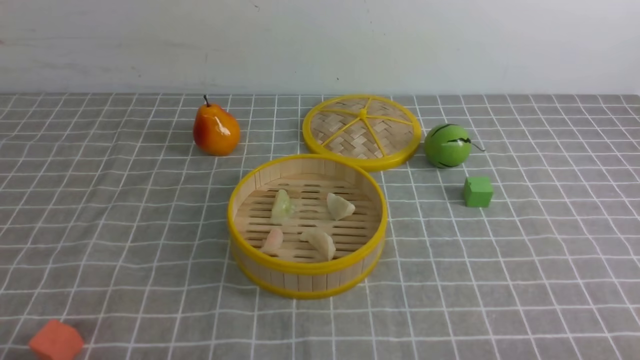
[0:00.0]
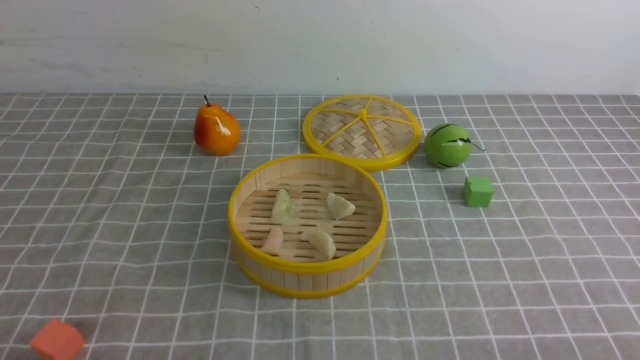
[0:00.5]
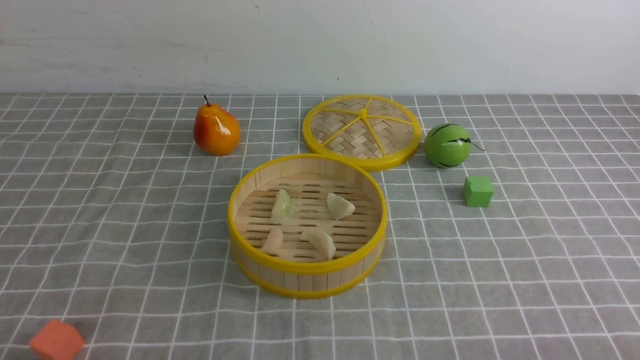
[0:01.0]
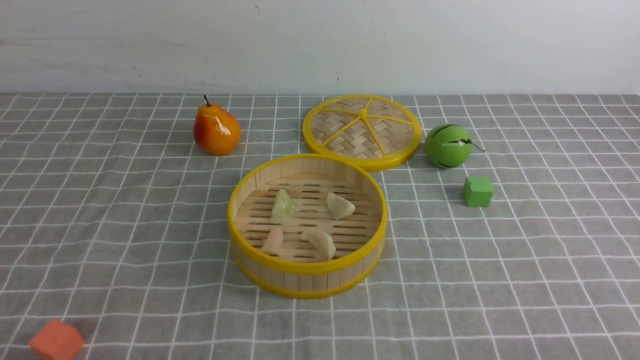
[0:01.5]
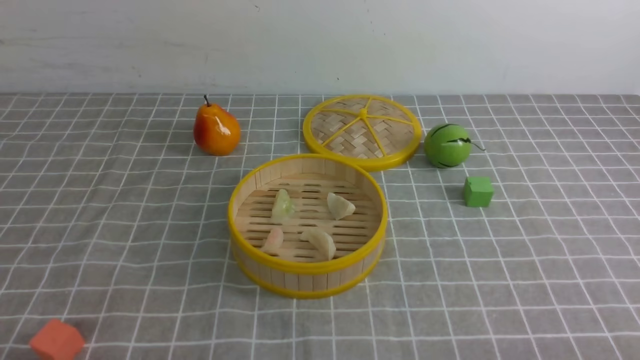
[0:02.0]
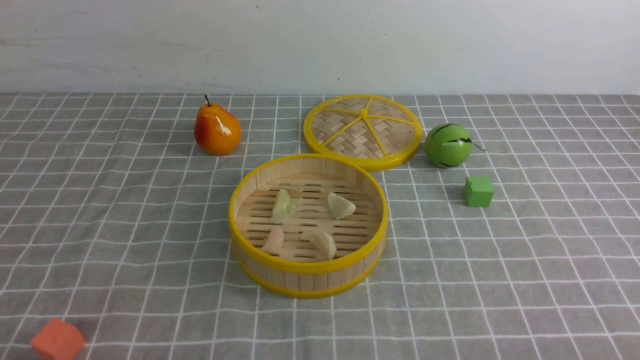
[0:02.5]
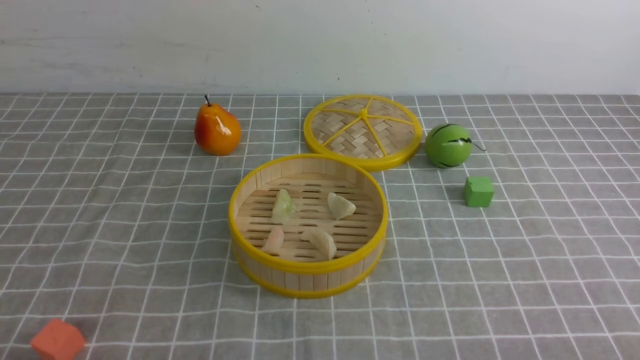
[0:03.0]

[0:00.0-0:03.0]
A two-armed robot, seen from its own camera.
Task of the whole recording: put the dumplings into the steamer on the table with the grey tablecloth.
0:01.5 to 0:03.0: Both grippers stay about where they are.

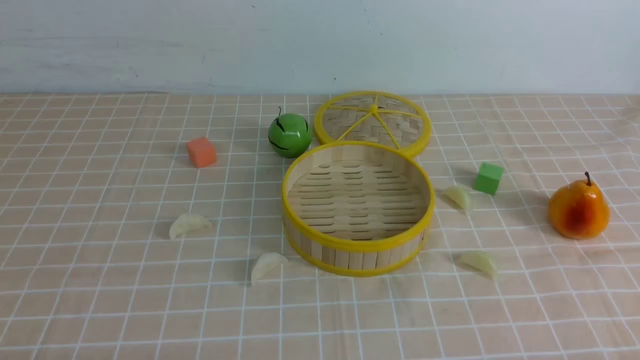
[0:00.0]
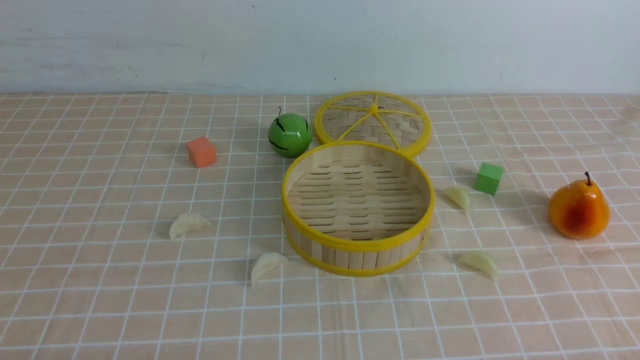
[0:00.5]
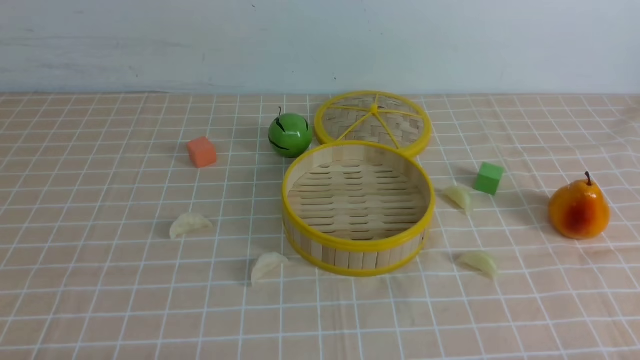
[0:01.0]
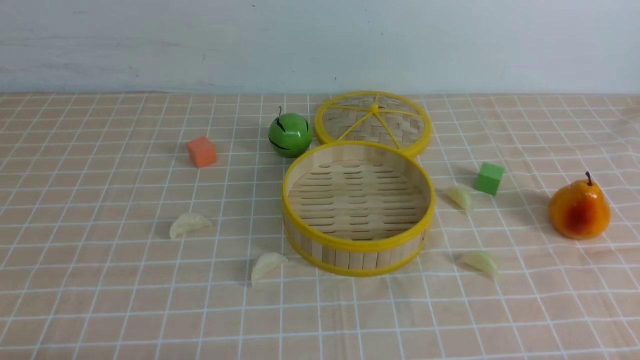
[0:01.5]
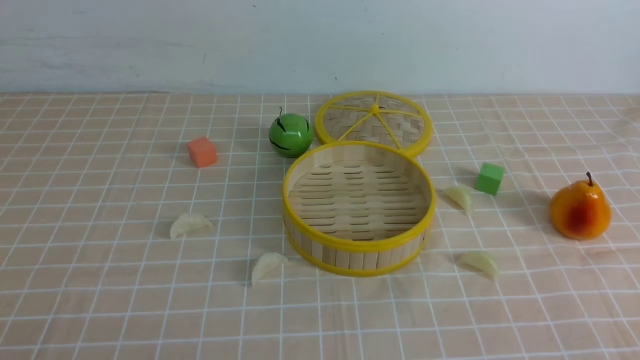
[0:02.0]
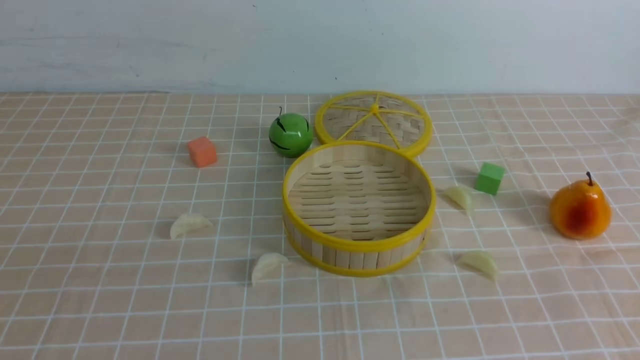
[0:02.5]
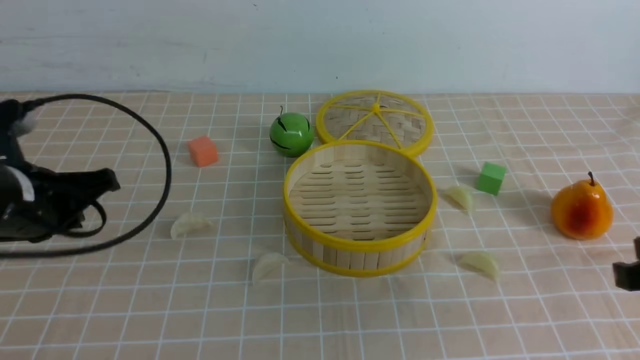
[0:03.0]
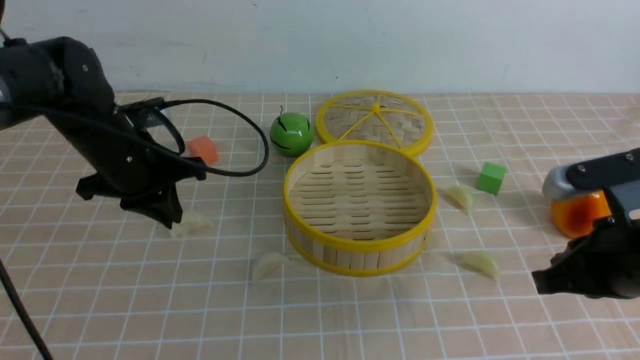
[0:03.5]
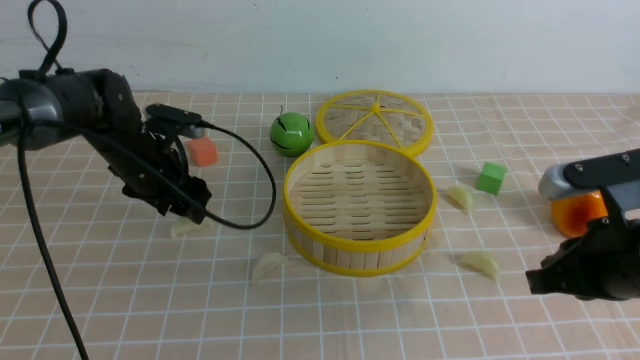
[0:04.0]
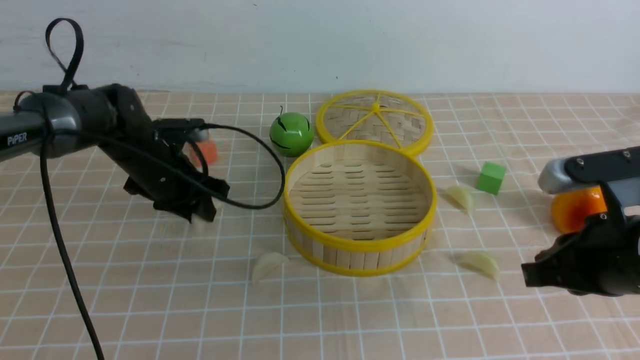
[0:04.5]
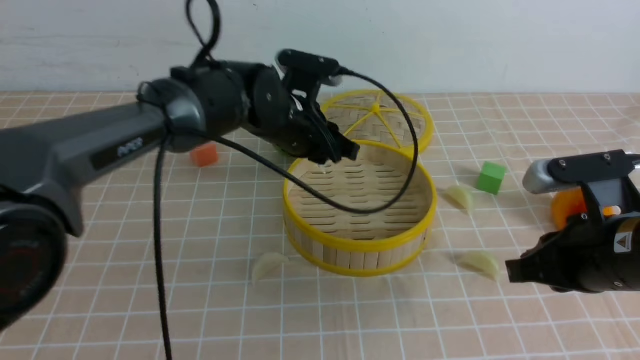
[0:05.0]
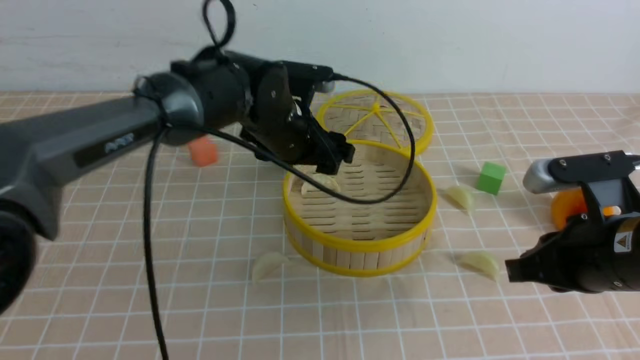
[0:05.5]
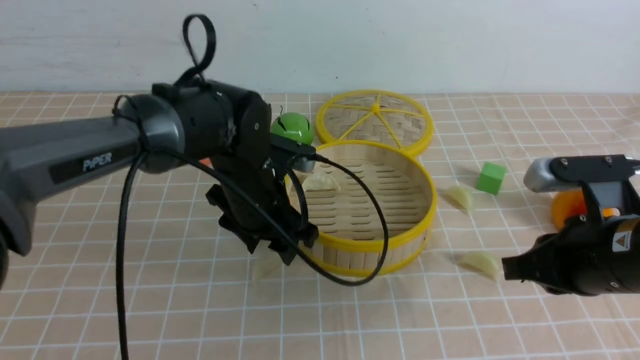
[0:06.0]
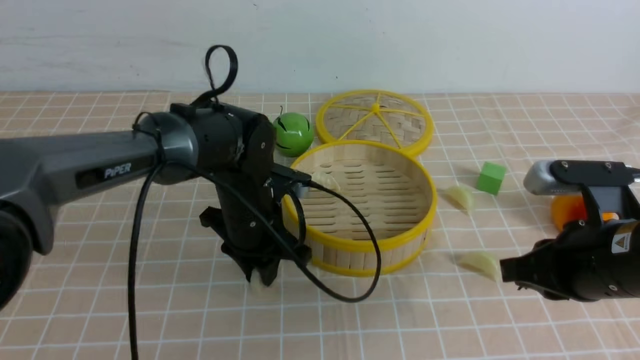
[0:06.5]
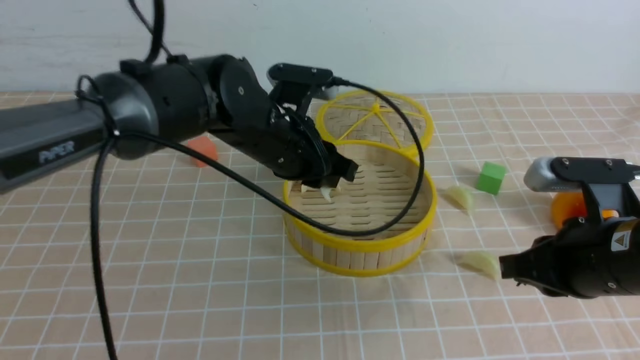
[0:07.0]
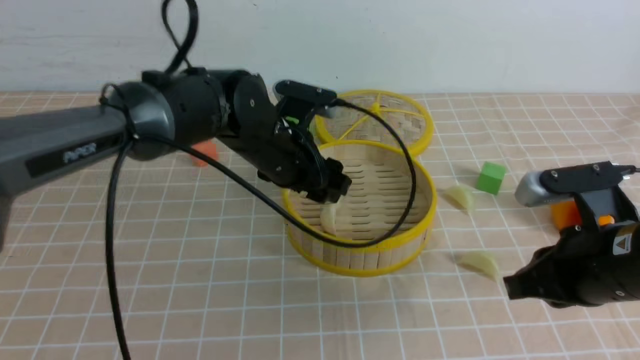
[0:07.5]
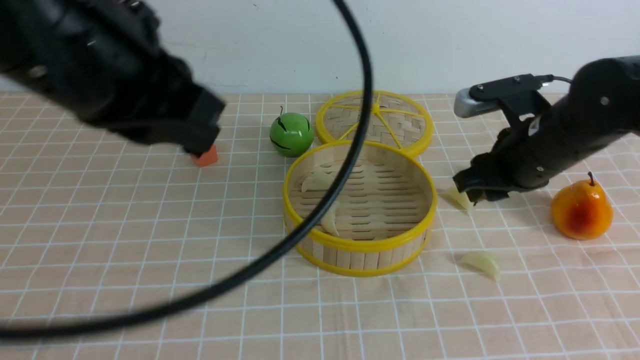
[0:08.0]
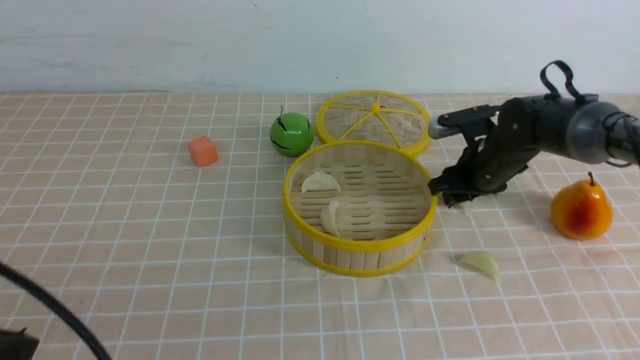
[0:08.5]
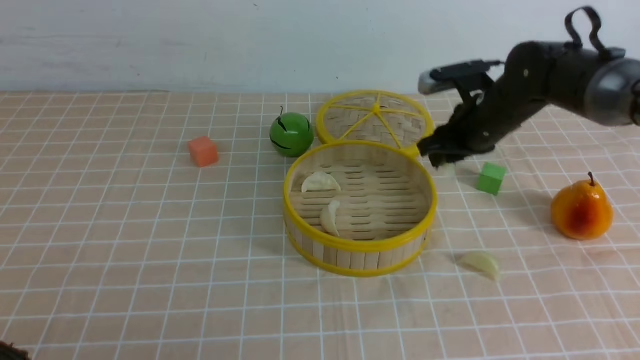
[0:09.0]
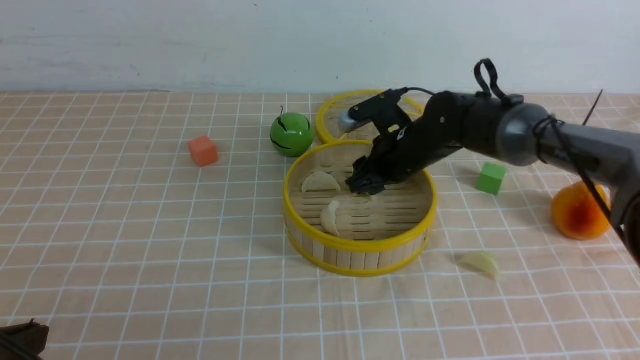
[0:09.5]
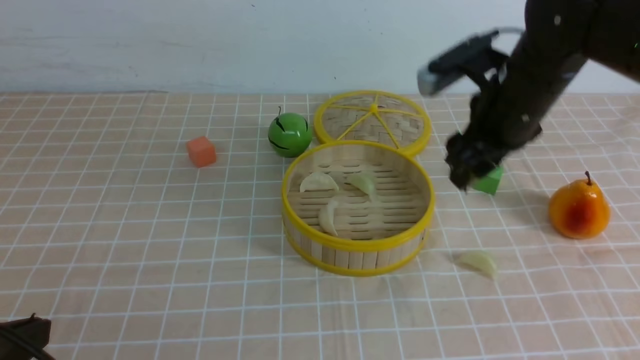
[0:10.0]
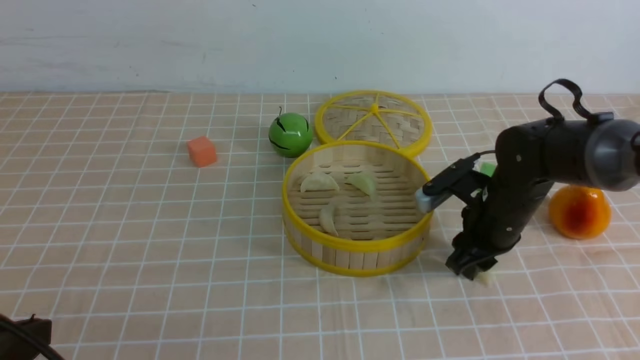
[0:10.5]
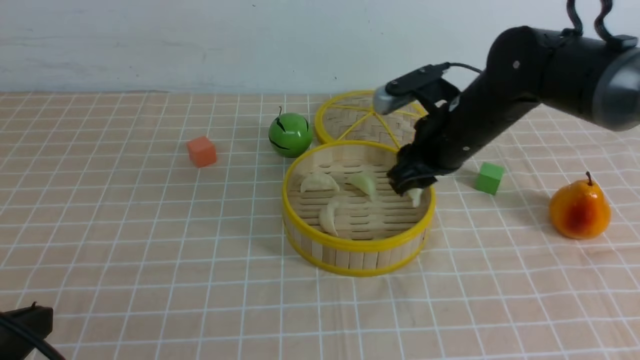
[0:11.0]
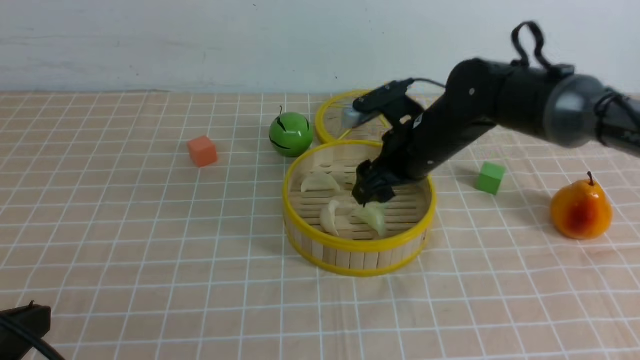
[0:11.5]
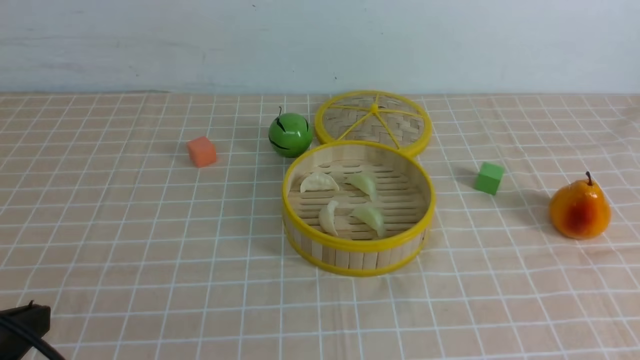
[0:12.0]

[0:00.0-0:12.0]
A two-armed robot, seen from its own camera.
Task of the whole recording: put the dumplings into the steamer on the table with the brown tablecloth.
Step, 0:00.0 to 0:04.0: use the left arm to grab a dumpling.
Step, 0:04.5 to 0:05.5: use the left arm to put the dumpling into the steamer.
Step, 0:06.5 to 0:07.5: use the left arm to put the dumpling into the steamer.
Step, 0:08.0 to 0:08.5: use the right arm to grab a dumpling.
Step, 0:09.0 to 0:09.5: use the right arm to put the dumpling into the steamer.
Step, 0:11.0 to 0:11.5: use the right arm to put the dumpling into the steamer.
0:02.0 to 0:04.0: The right gripper moves forward, approximately 15 cm, and closes. Meanwhile the left gripper heads forward, covering approximately 40 cm, and opens up.
0:04.0 to 0:06.0: The left gripper moves to the right and backward, approximately 15 cm, and closes and opens again.
0:06.0 to 0:08.0: The right gripper is displaced forward by some 15 cm, and opens; the left gripper is displaced upward and backward by about 25 cm, and closes.
0:08.0 to 0:10.0: The left gripper is displaced downward, backward and to the left by some 20 cm, while the right gripper travels to the left and back again, some 10 cm each way, and opens.
0:10.0 to 0:12.0: The right gripper goes approximately 30 cm upward and backward, and closes its fingers.

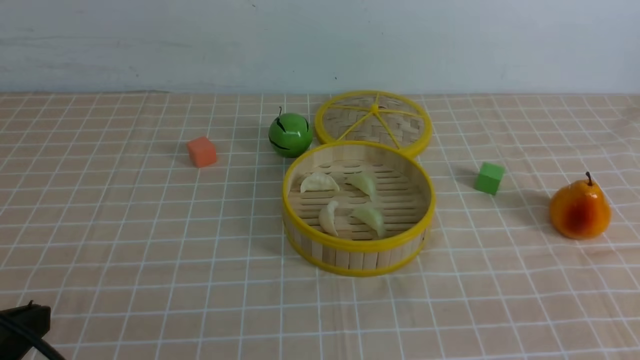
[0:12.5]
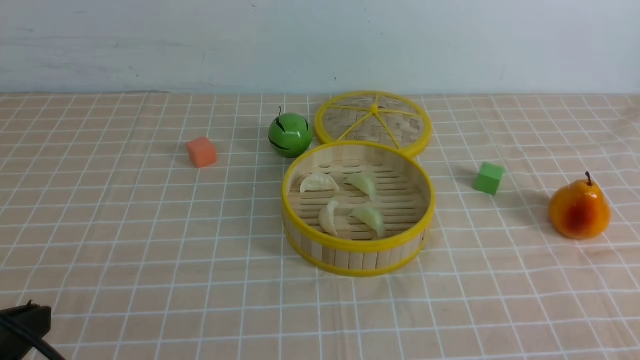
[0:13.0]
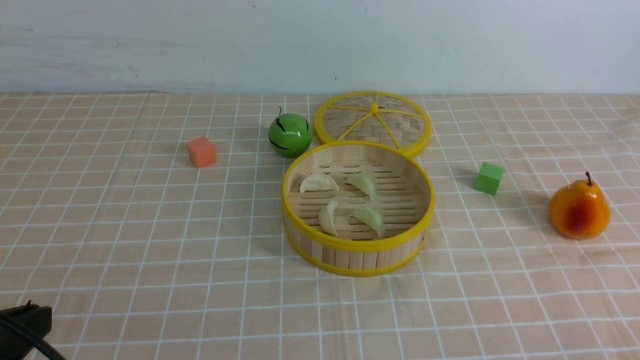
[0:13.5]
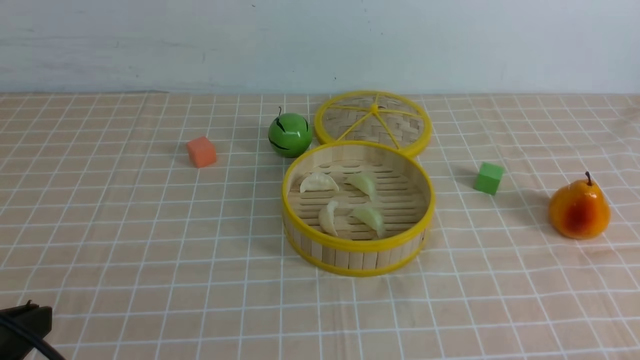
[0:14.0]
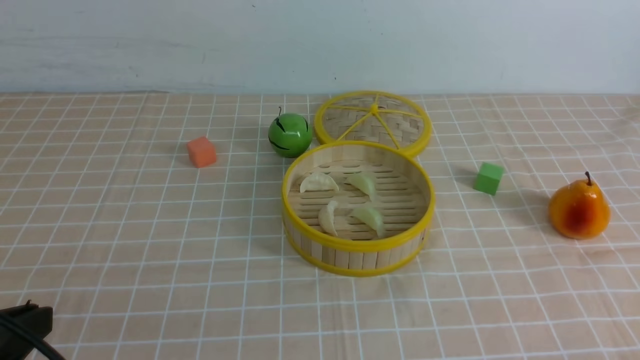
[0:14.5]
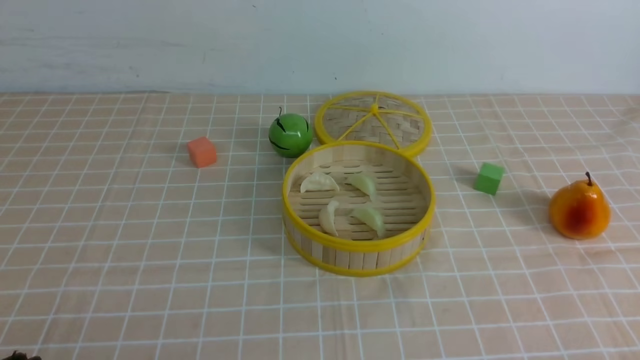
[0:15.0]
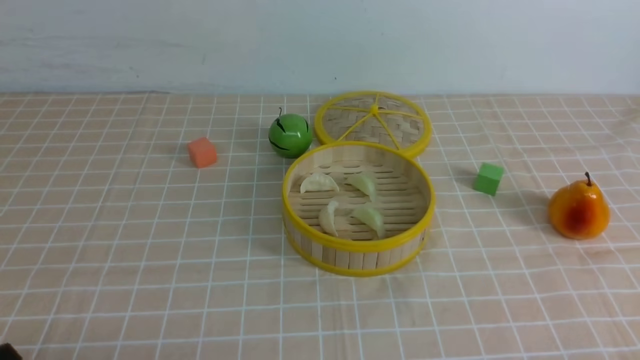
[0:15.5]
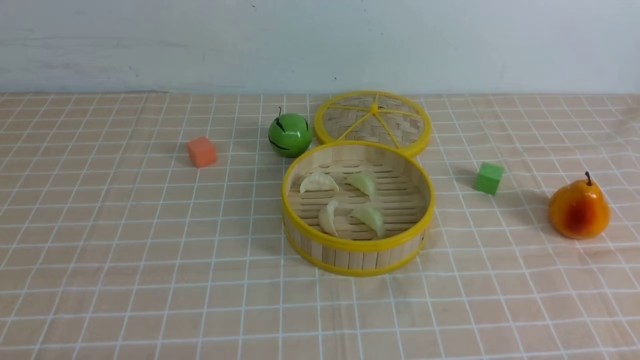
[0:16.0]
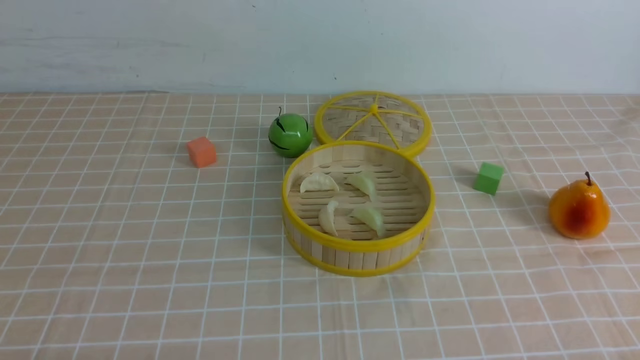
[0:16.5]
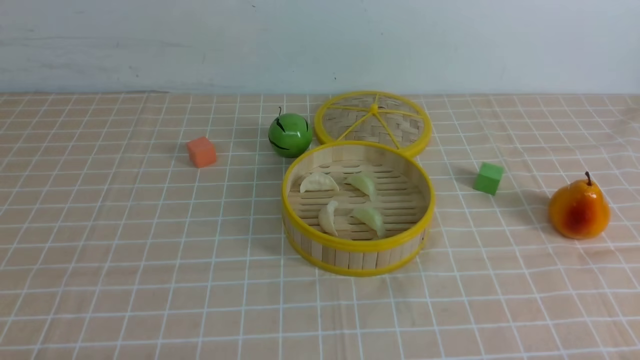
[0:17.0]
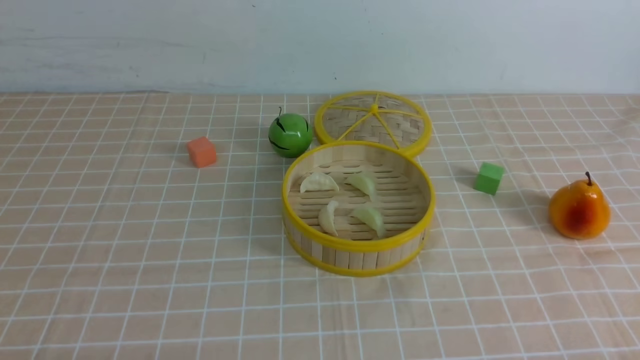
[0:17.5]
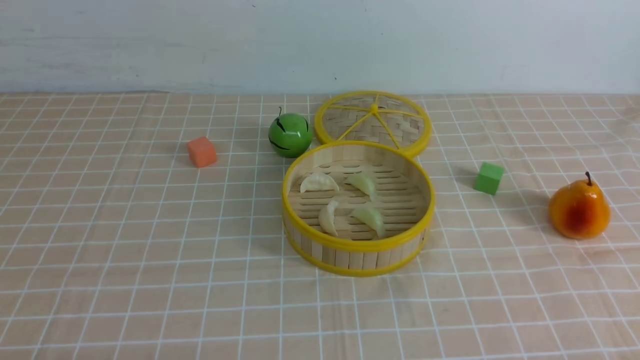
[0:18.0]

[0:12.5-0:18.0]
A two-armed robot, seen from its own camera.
Task of the whole recording: put the dumplings into the steamer on the table with the brown tablecloth.
0:12.5 to 0:14.5: The right gripper shifts roughly 10 cm downward.
0:14.5 to 0:16.0: The left gripper travels downward by approximately 10 cm.
0:16.0 to 0:18.0: Neither gripper changes place.
